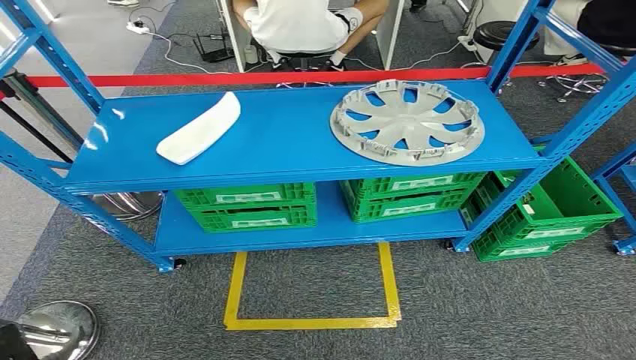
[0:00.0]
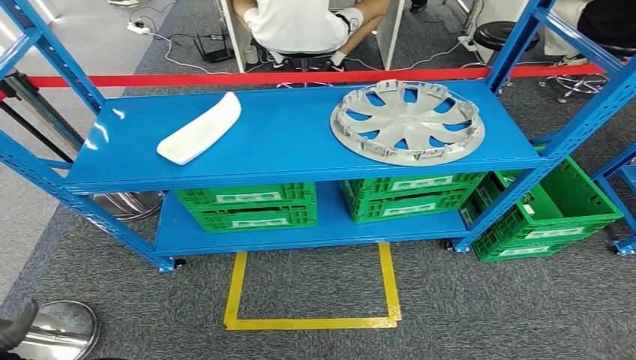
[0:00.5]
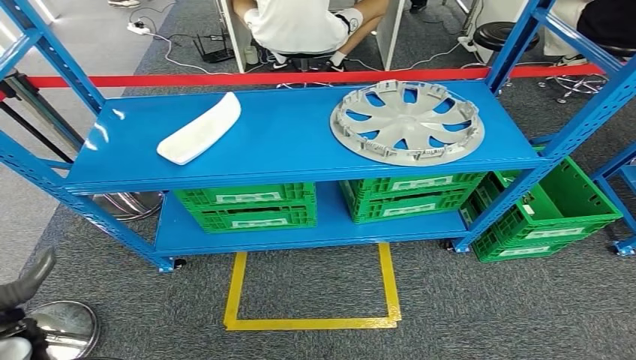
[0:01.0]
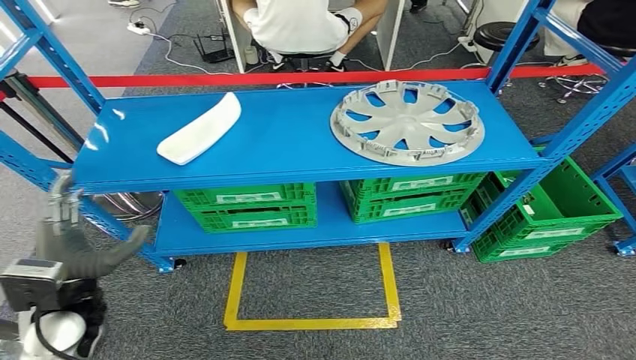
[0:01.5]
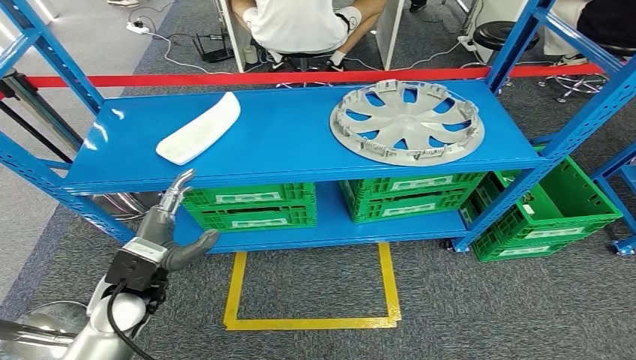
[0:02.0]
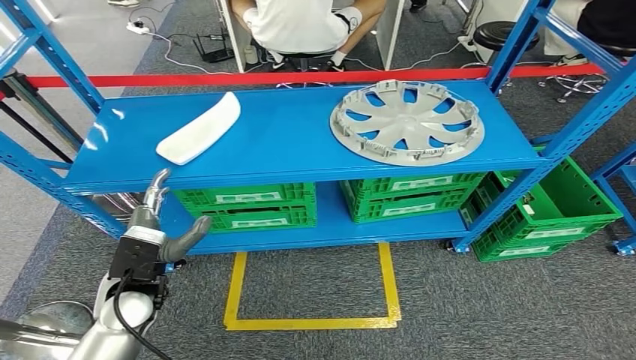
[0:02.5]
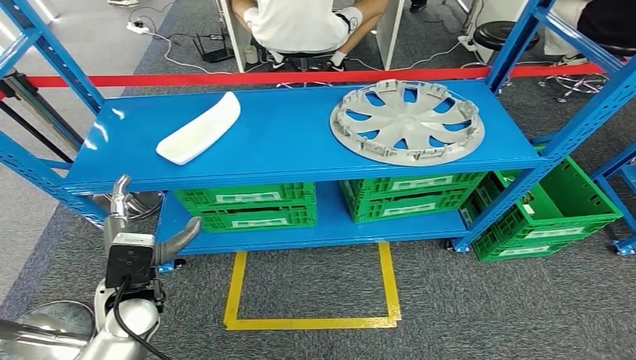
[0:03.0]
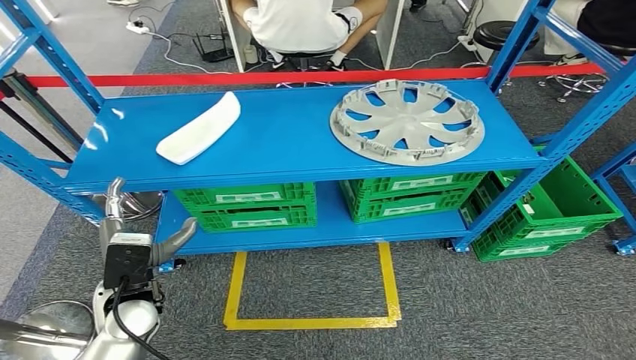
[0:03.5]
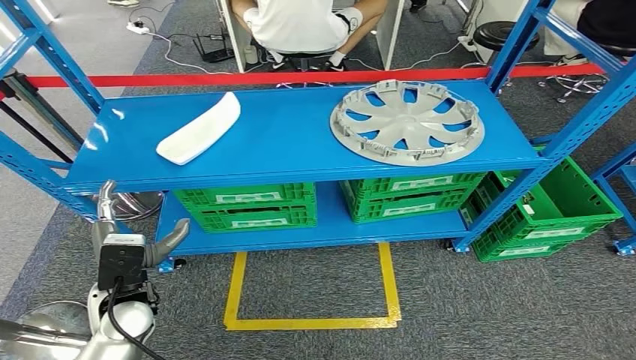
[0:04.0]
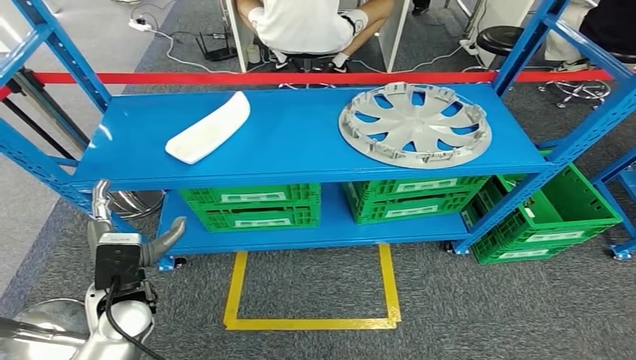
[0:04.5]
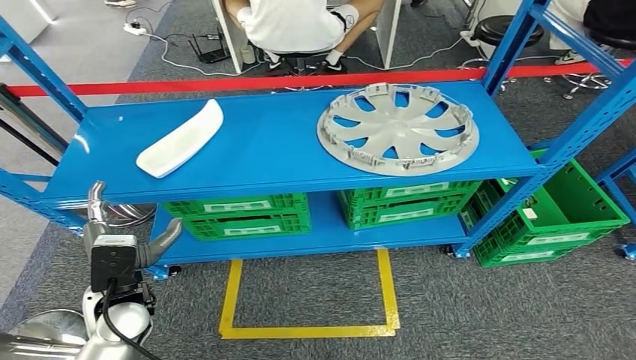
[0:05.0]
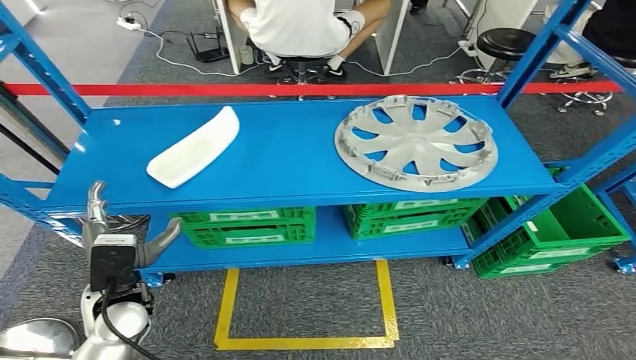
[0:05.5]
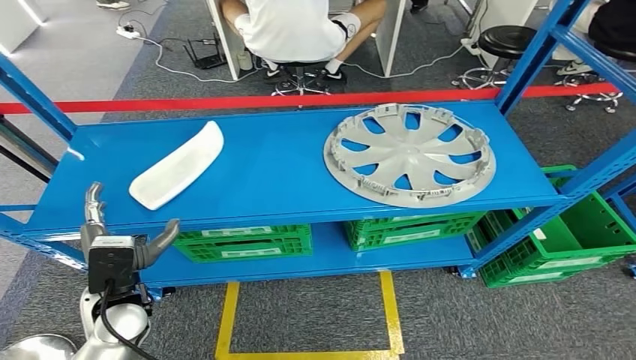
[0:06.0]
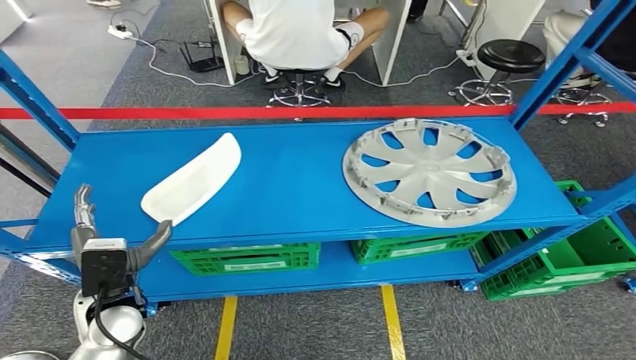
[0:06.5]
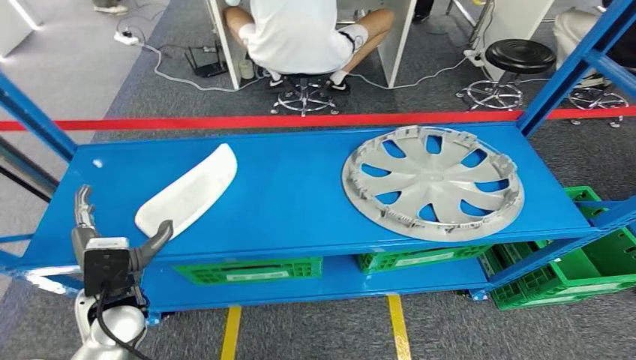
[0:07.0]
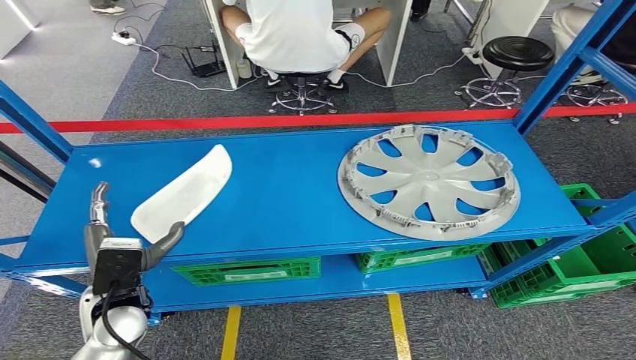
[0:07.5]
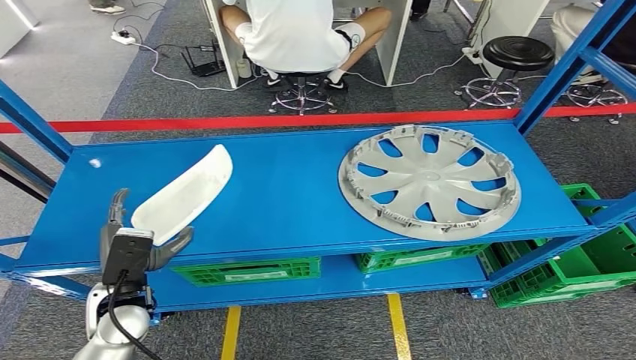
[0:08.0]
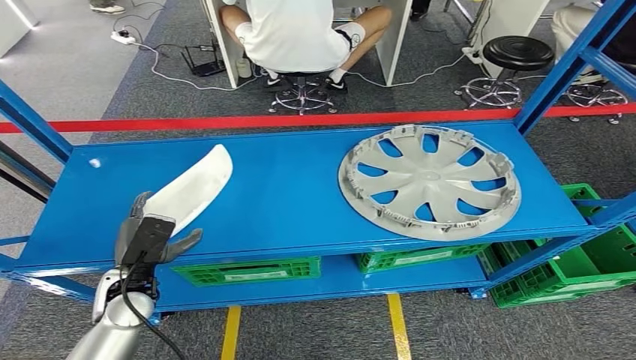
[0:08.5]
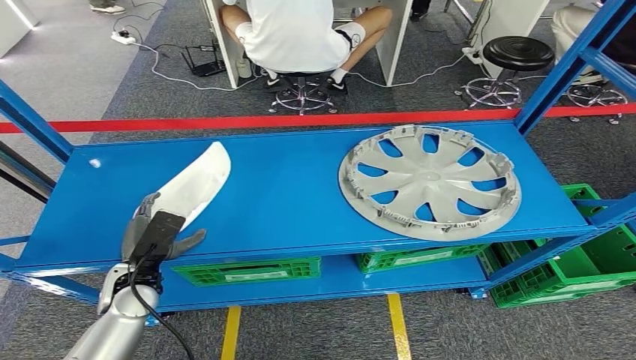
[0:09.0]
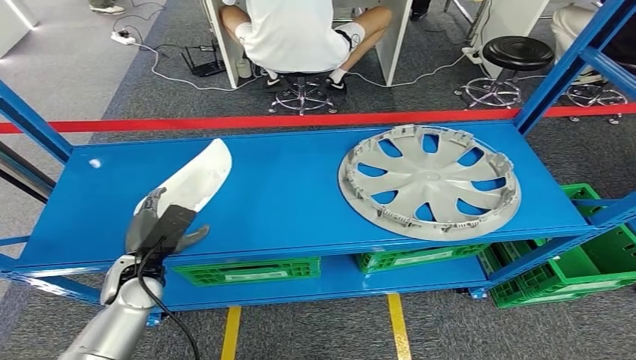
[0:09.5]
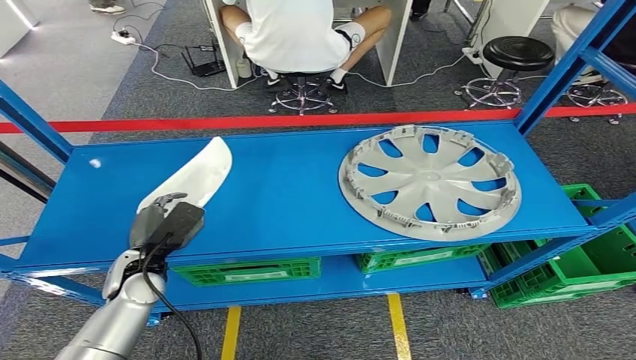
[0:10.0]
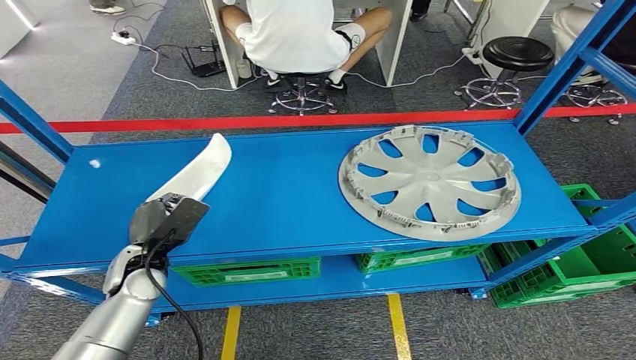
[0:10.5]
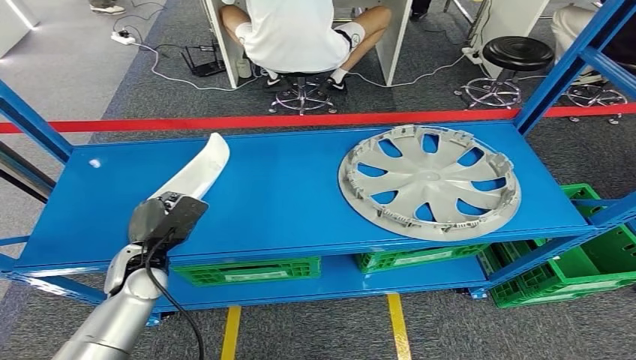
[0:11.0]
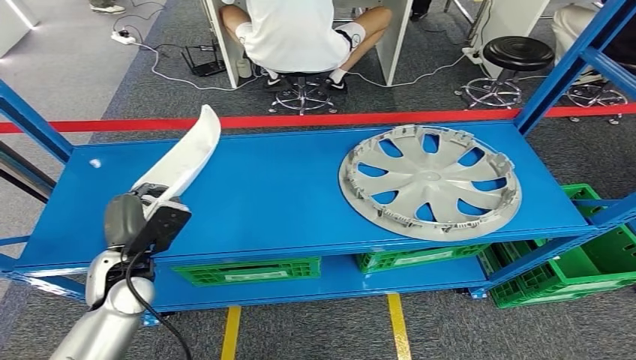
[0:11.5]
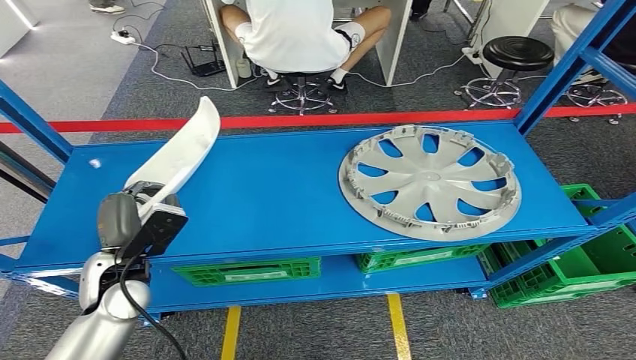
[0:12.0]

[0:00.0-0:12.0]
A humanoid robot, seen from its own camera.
0:08.0 to 0:10.0: The left hand travels forward by roughly 5 cm.
0:10.0 to 0:12.0: The left hand changes place by roughly 5 cm.

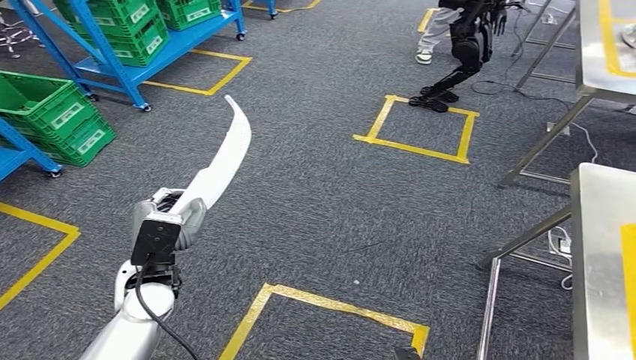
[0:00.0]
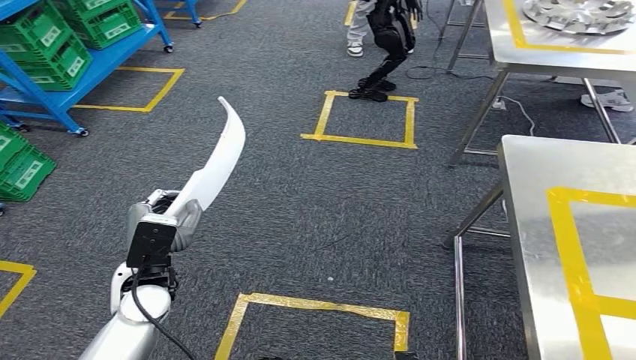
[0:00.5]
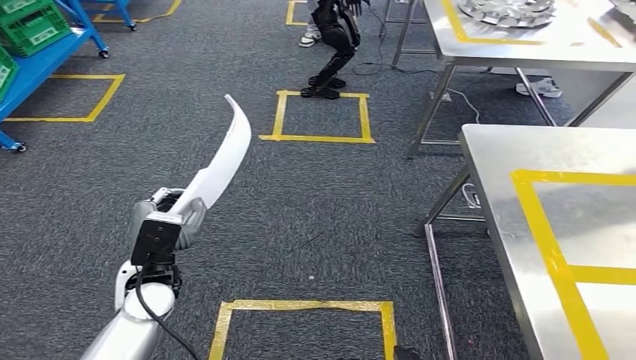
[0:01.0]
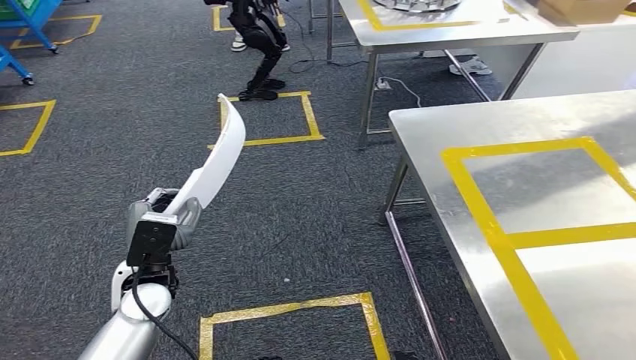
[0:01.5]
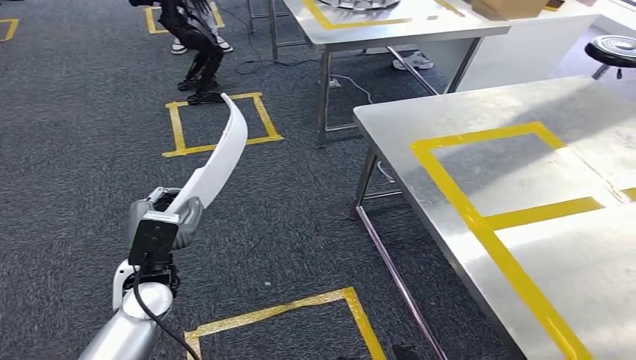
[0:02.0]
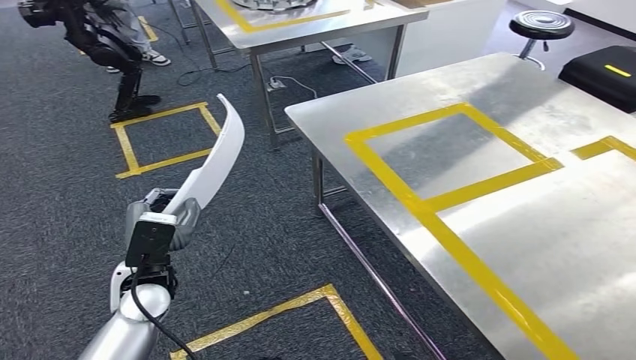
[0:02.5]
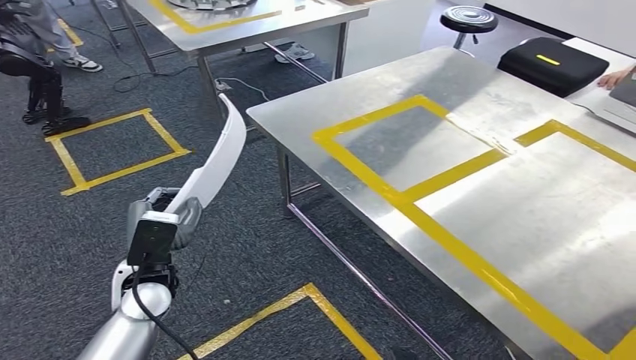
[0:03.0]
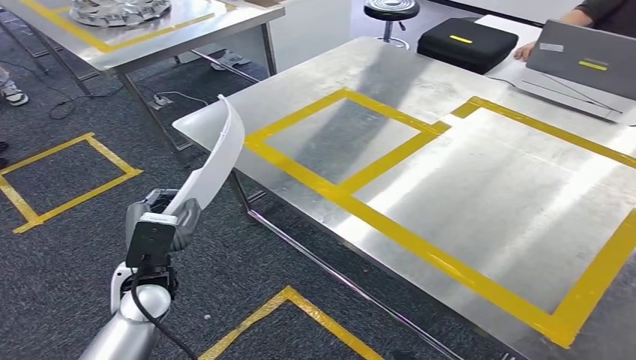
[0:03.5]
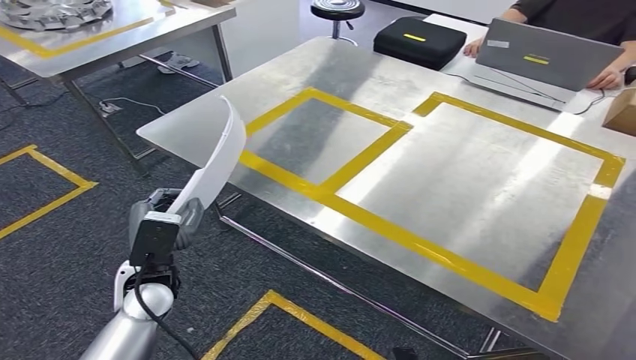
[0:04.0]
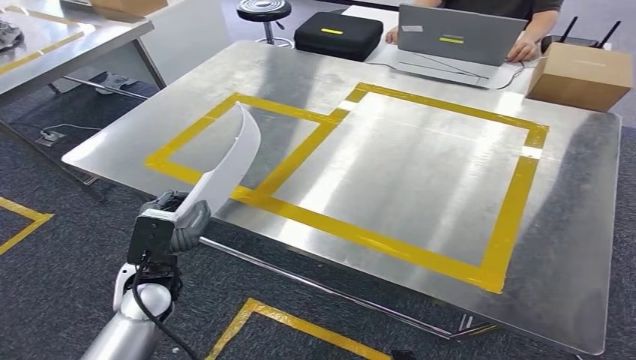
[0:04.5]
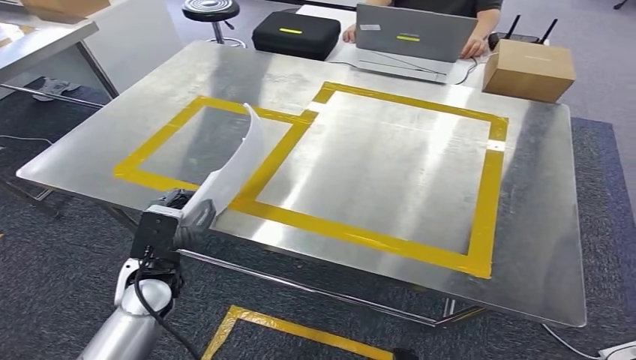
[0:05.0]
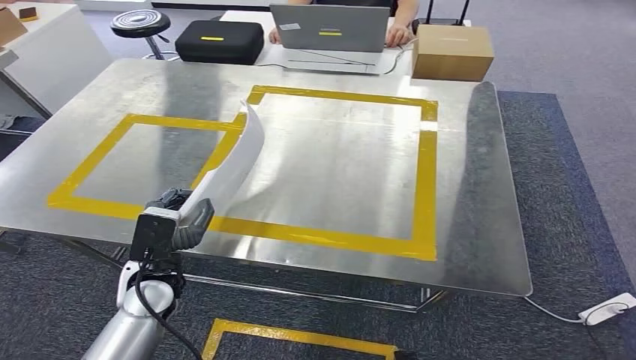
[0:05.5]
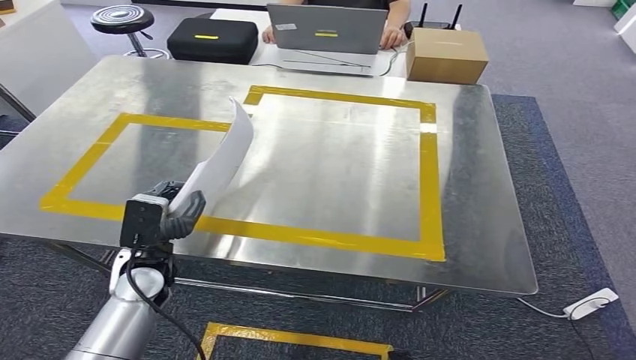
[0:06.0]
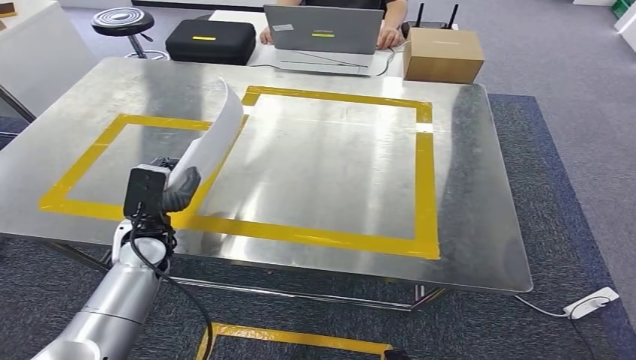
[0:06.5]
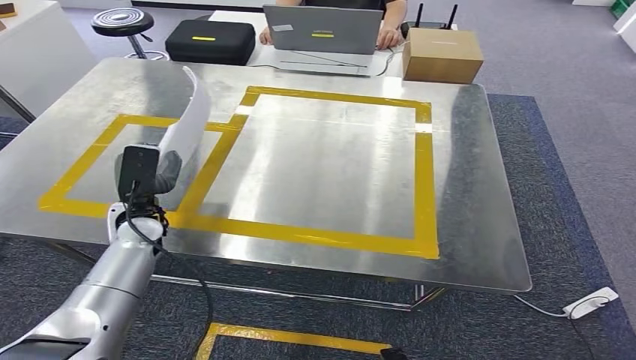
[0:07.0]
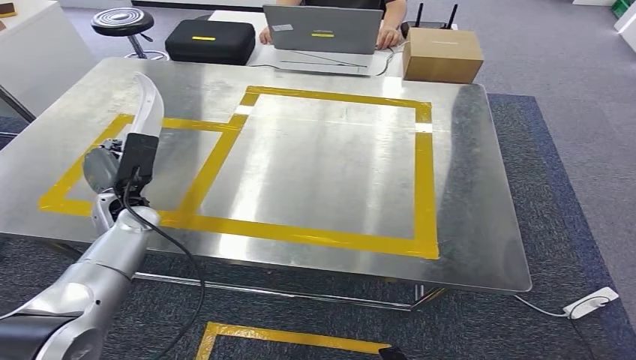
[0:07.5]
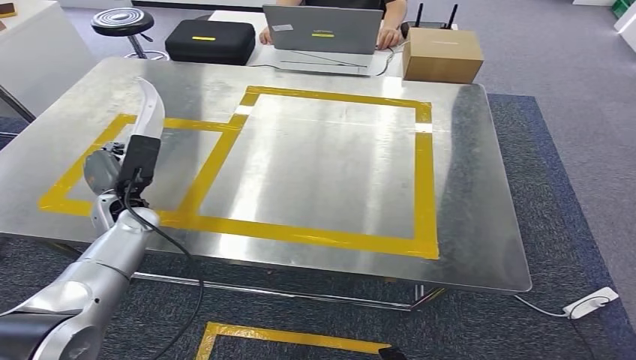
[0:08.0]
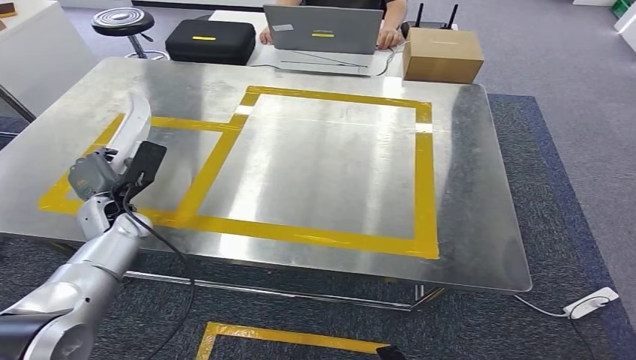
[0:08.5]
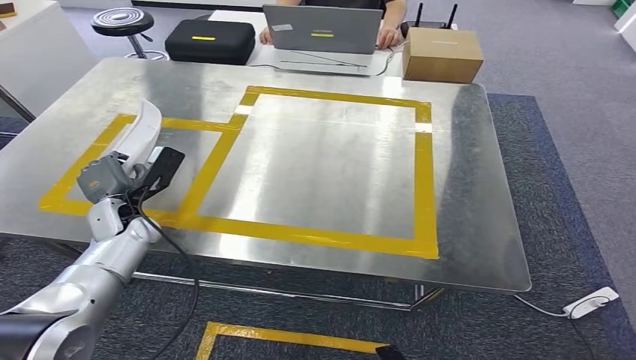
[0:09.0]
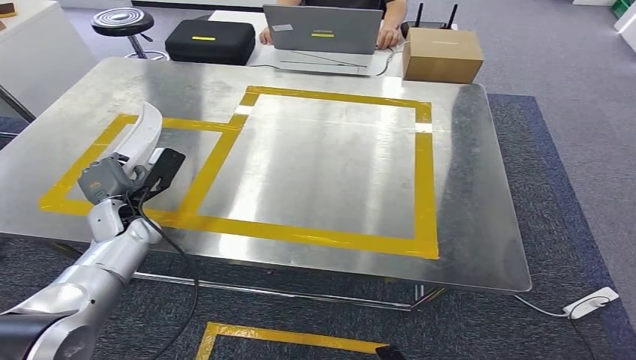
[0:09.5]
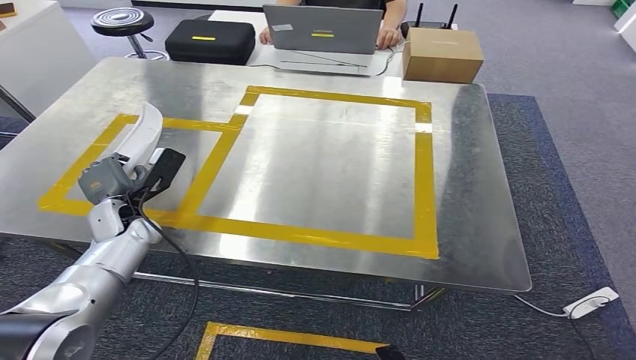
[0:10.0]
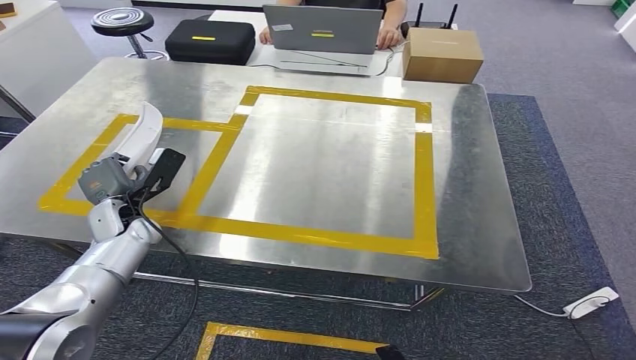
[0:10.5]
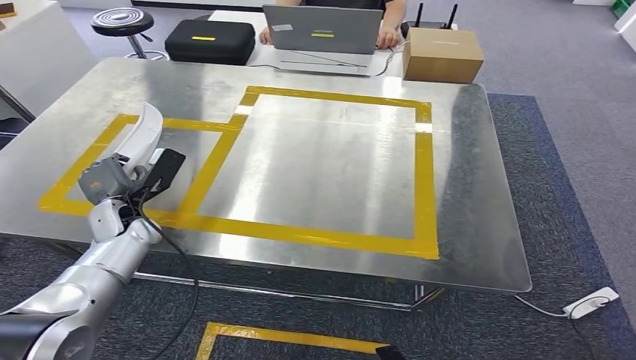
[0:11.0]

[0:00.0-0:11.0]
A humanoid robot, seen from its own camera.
Step, 0:00.0 to 0:05.0: Move the small component to the workbench.
0:09.0 to 0:11.0: Both hands stay put.
